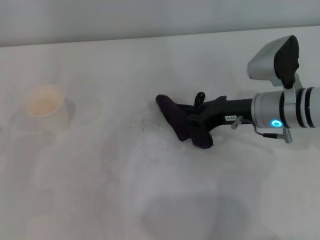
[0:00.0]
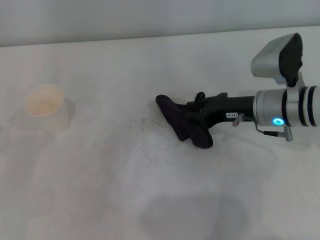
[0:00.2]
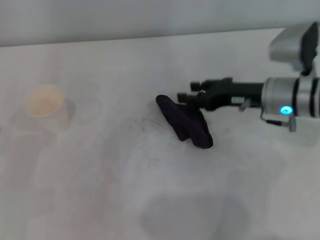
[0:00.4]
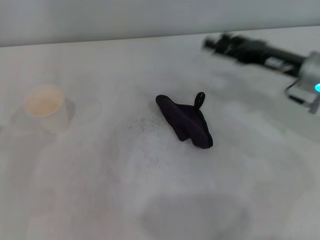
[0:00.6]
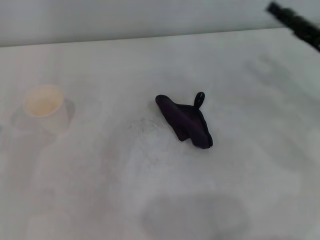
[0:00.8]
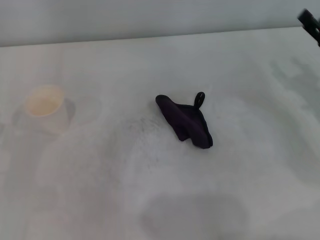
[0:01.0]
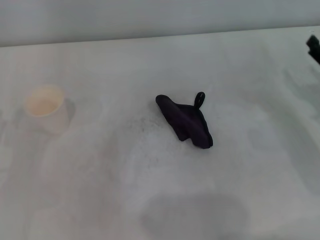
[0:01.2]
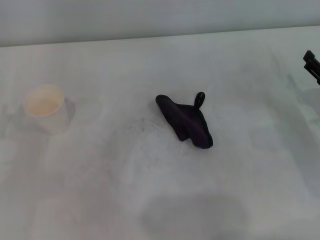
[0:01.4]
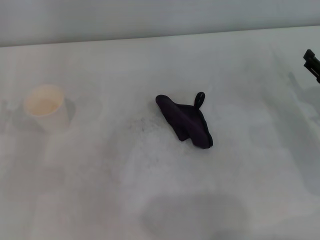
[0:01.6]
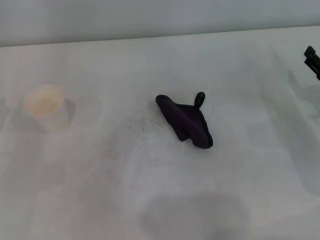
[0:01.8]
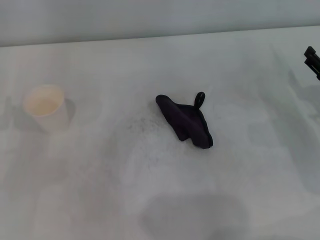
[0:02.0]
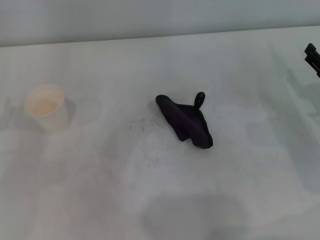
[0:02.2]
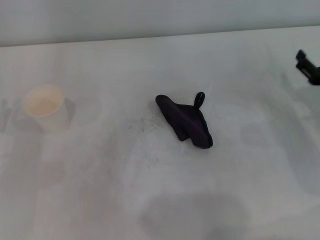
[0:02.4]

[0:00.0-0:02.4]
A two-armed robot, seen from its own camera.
0:00.0 to 0:01.2: The right gripper goes roughly 15 cm to the right, and opens.
0:01.2 to 0:02.4: The grippers move only a little.

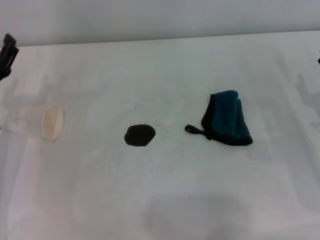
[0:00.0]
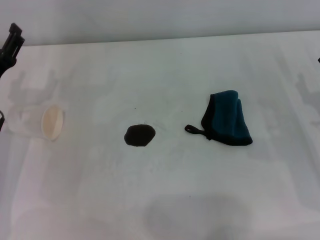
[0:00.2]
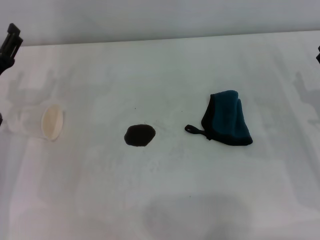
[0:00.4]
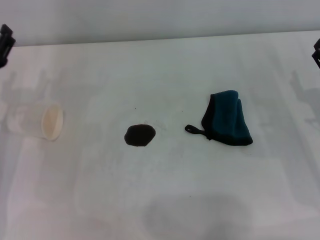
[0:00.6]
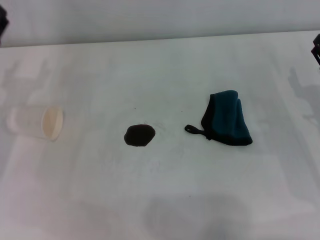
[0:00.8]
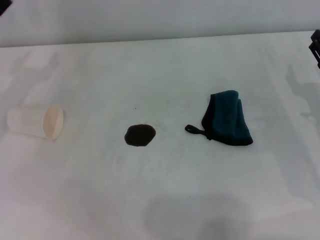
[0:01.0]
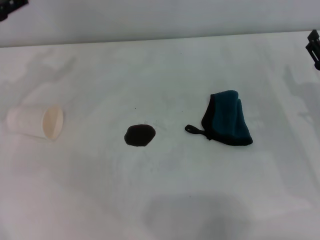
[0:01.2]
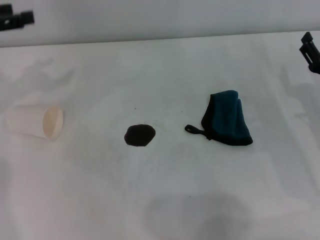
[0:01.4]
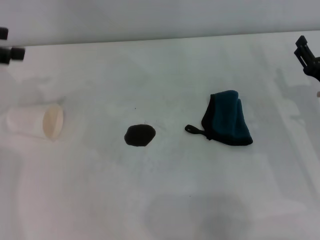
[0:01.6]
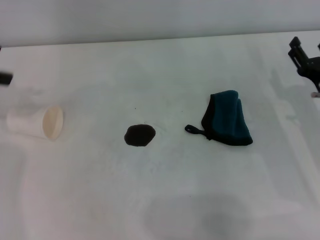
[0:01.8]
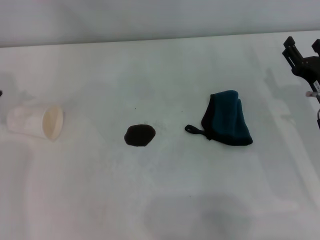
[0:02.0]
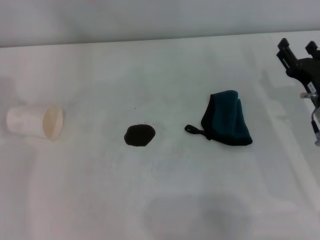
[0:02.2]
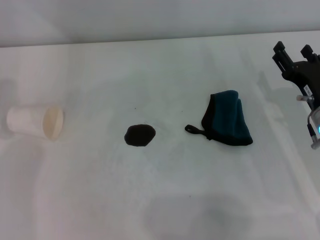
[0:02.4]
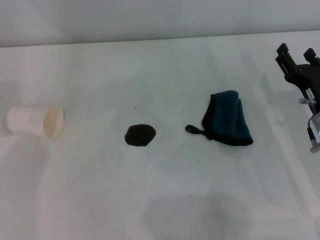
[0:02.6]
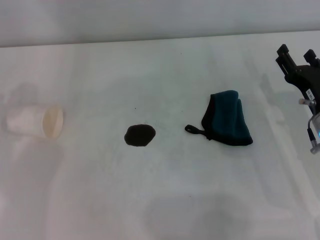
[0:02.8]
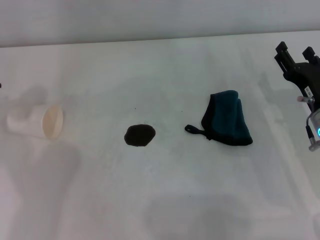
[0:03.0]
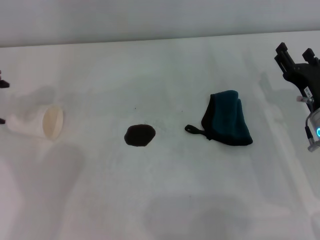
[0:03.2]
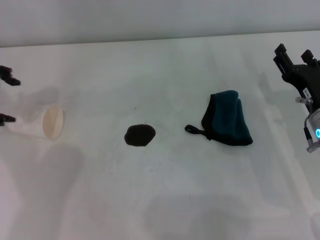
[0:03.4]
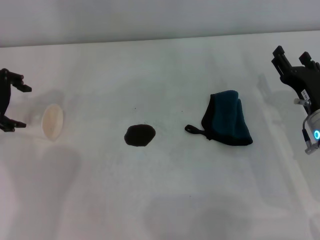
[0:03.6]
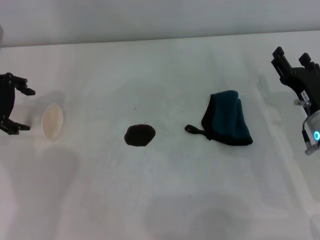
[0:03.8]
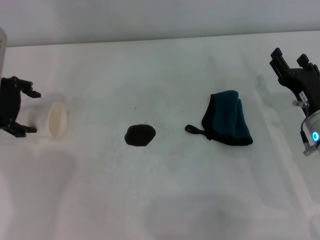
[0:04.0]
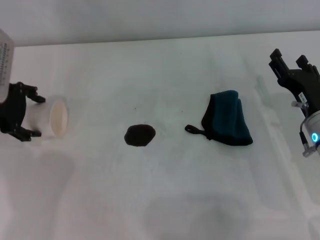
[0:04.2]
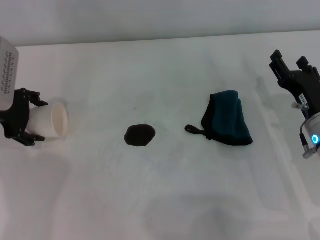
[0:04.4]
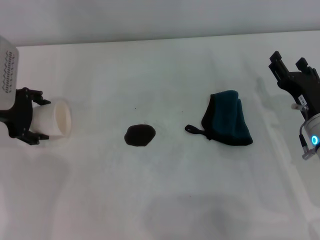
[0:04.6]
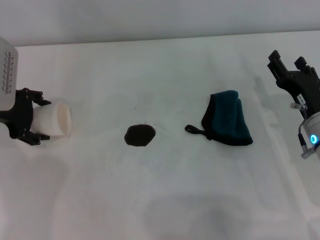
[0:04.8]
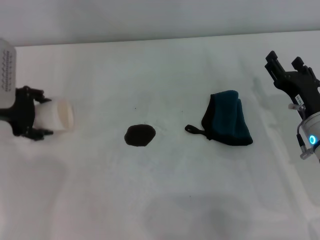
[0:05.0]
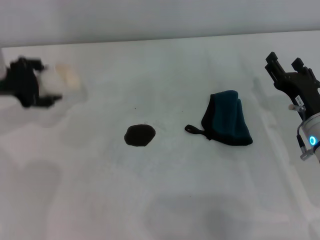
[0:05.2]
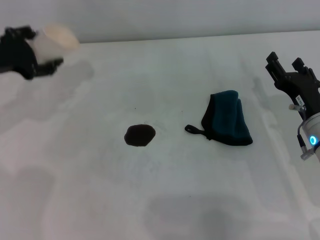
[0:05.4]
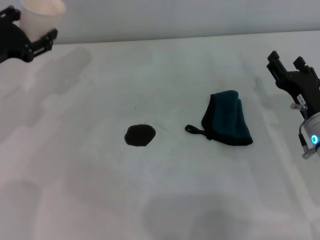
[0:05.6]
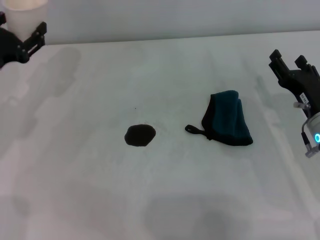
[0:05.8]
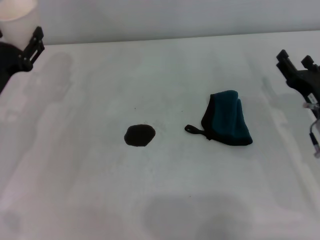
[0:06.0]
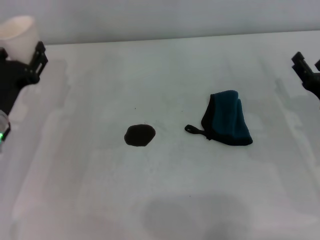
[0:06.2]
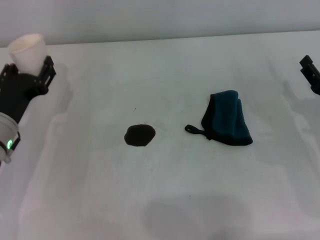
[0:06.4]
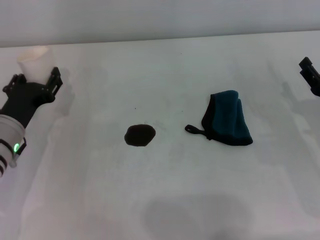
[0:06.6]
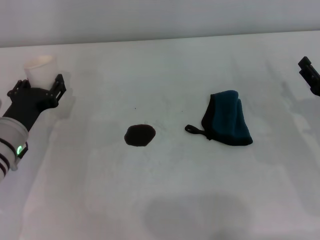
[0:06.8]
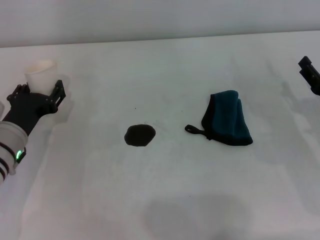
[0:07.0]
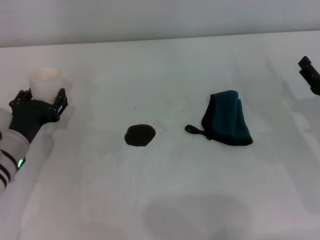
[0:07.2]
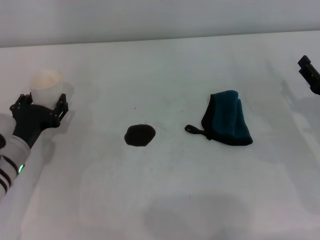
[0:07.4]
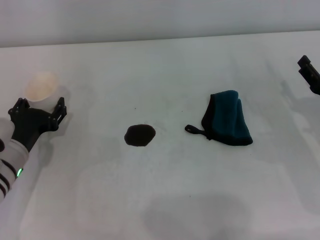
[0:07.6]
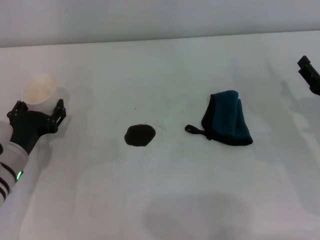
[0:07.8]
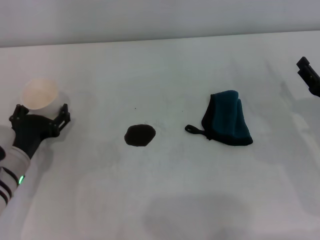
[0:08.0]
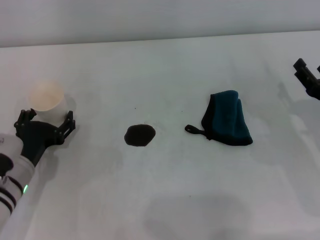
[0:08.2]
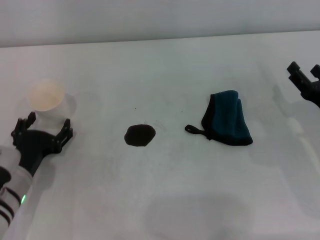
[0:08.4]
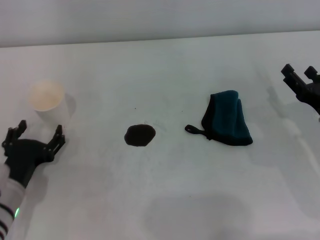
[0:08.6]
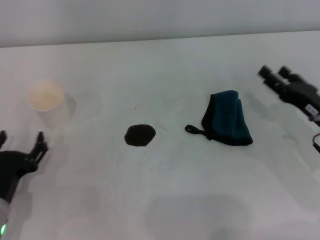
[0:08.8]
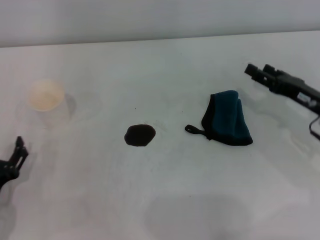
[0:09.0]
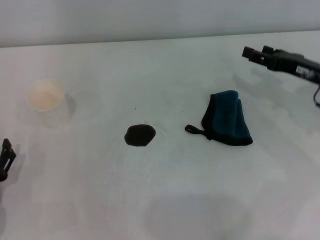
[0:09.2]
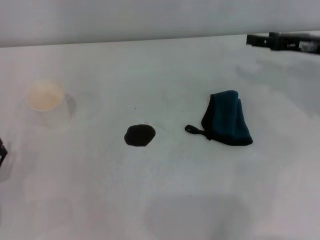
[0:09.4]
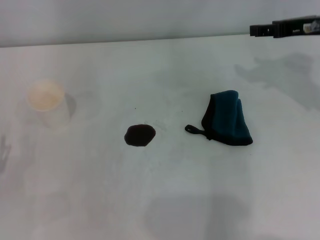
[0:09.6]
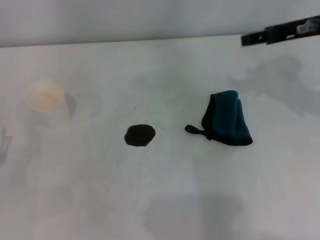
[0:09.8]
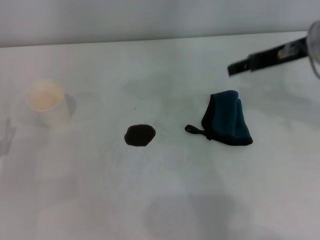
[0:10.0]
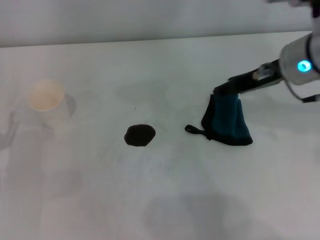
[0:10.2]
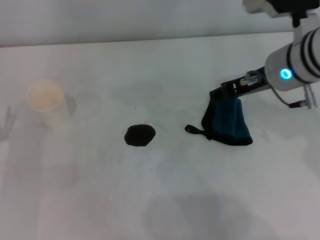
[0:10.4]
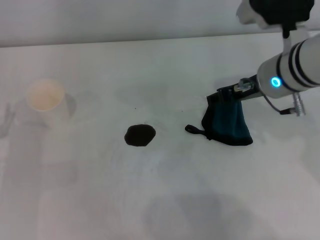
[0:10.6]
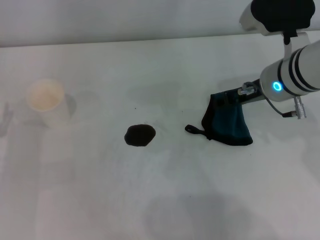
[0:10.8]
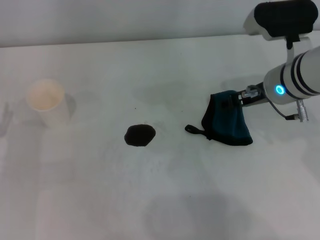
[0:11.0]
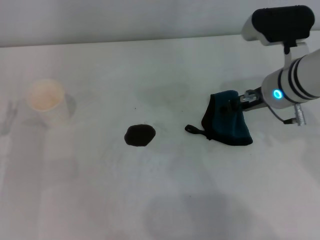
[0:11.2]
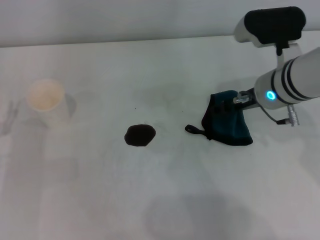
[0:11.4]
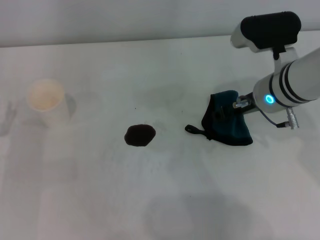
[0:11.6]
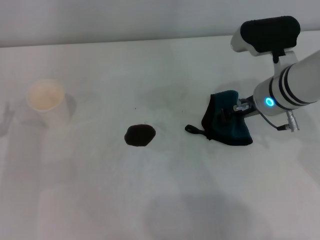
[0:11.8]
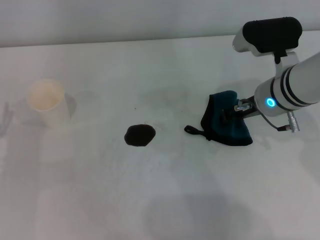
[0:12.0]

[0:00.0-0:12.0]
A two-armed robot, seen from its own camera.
Step, 0:00.0 to 0:04.2: Grasp the paper cup with the left gripper.
Step, 0:04.6 to 0:08.0: Stand the paper cup upright with the left gripper.
0:00.0 to 0:01.6: The left gripper travels upward, to the left and forward by approximately 20 cm.
0:03.0 to 0:04.4: The left gripper shifts about 10 cm downward.
0:04.4 to 0:06.0: The left gripper shifts roughly 10 cm downward and backward, and closes.
0:06.0 to 0:07.6: The left gripper shifts approximately 5 cm downward.
0:07.6 to 0:09.0: The left gripper goes some 10 cm backward, and opens.
0:09.0 to 0:10.4: The left gripper moves forward, approximately 5 cm. Meanwhile the right gripper is displaced upward and to the left by about 20 cm.
0:10.4 to 0:12.0: The right gripper is displaced downward by approximately 5 cm, and closes up.

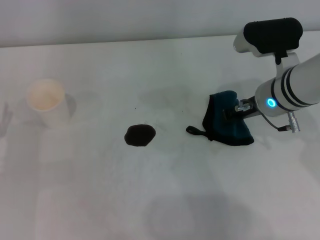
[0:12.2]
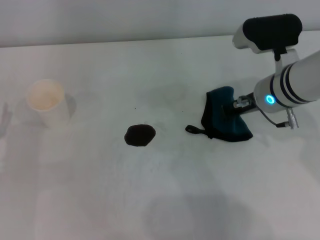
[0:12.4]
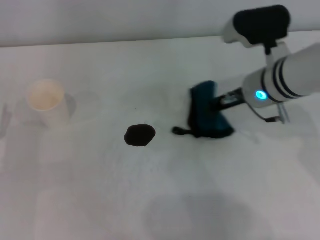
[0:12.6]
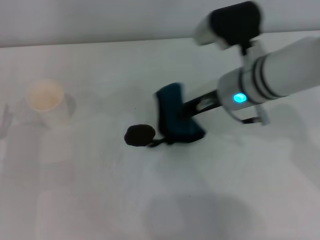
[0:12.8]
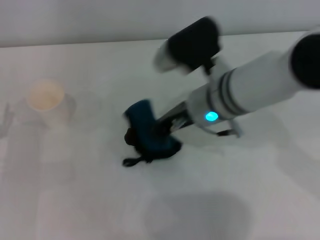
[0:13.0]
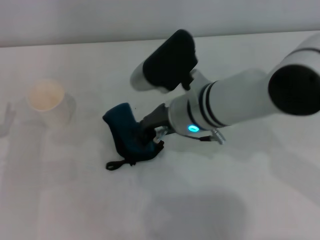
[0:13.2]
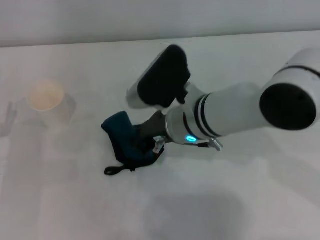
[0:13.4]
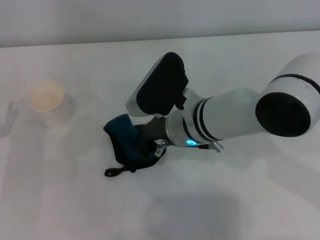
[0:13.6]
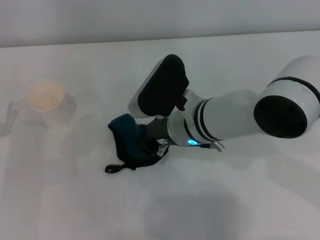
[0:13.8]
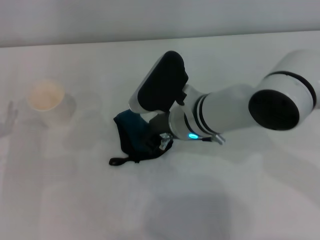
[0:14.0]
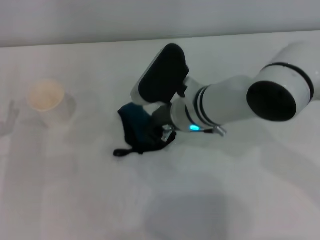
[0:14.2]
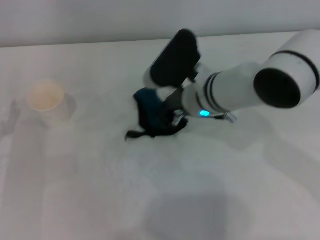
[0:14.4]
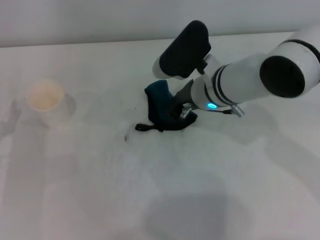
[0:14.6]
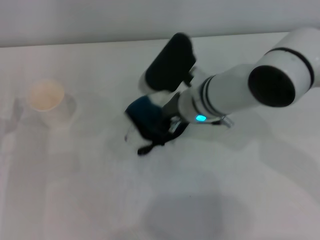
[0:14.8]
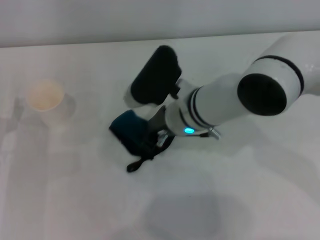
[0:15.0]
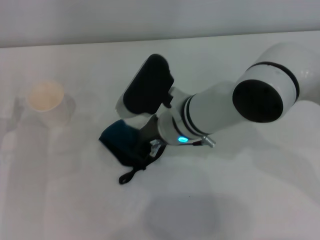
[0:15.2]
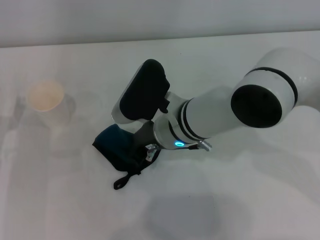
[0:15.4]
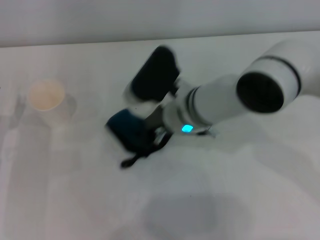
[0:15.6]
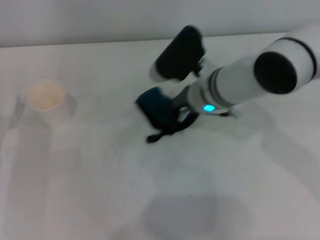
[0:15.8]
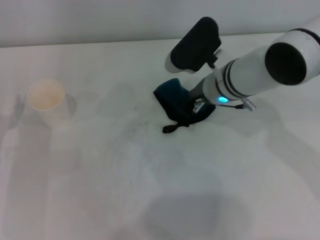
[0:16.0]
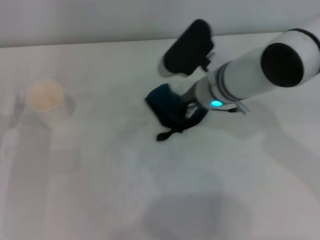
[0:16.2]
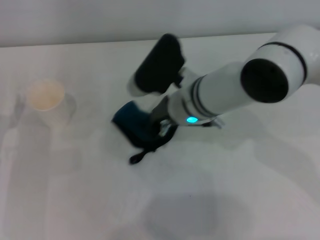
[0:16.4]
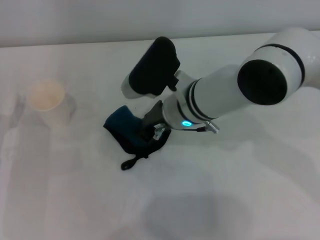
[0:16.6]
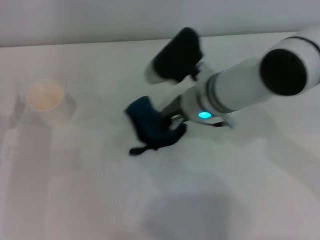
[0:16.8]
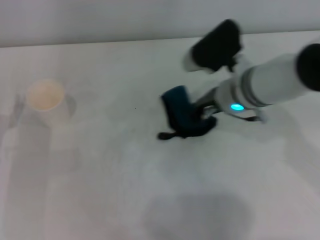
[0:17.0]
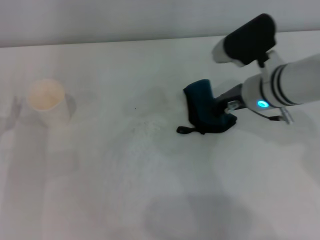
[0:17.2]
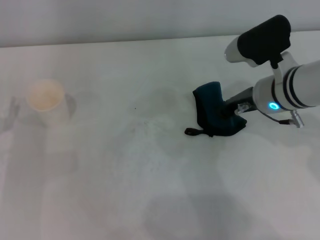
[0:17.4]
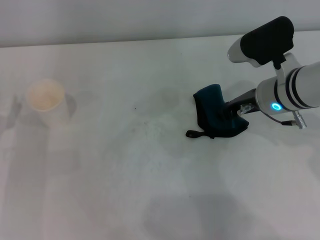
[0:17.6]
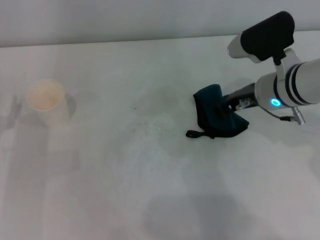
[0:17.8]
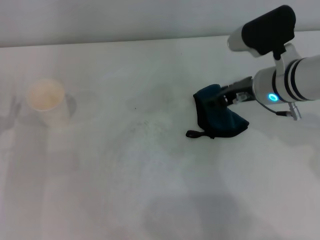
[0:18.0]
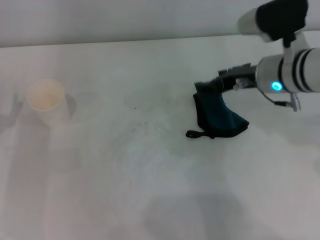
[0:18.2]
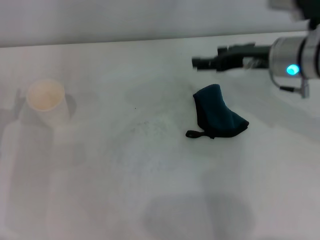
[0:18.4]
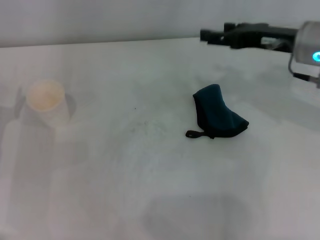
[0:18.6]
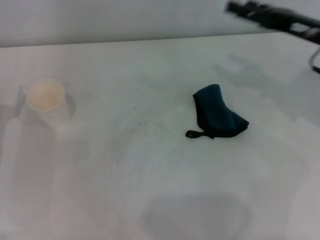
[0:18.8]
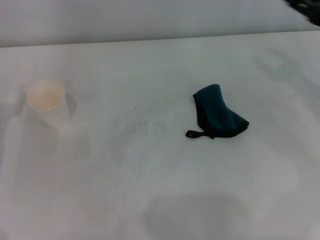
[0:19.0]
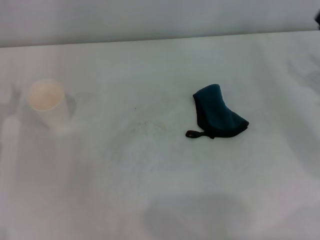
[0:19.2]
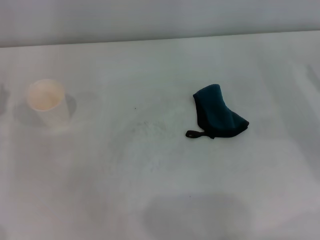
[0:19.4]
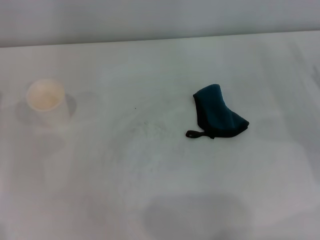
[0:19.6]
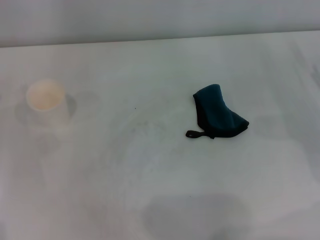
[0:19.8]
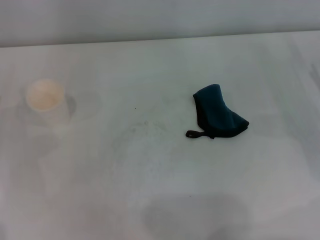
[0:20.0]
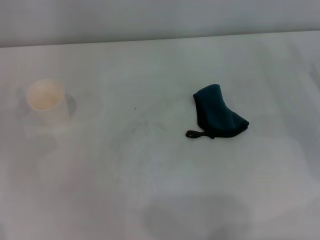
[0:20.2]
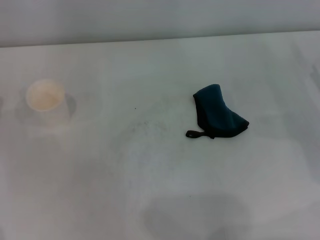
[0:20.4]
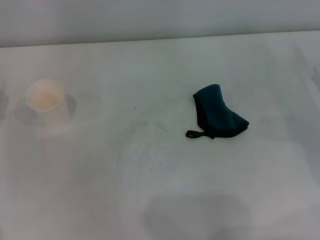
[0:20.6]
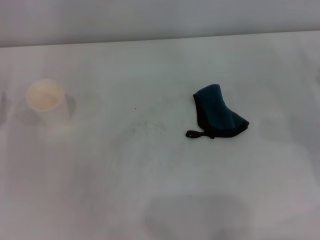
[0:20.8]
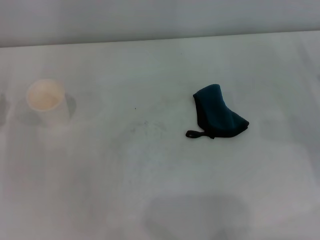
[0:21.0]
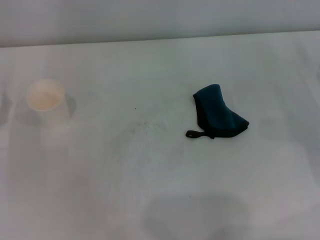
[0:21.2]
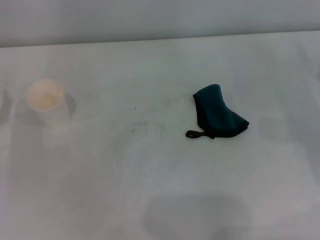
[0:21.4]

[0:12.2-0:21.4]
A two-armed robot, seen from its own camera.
Step, 0:12.4 to 0:17.0: Wipe the stains off the table with the right gripper.
Step, 0:17.2 to 0:17.8: Place the rag on the table with the right gripper.
0:12.2 to 0:13.8: The right gripper travels to the left by some 15 cm.
0:16.8 to 0:18.4: The right gripper shifts approximately 15 cm to the right and upward, and opens.
0:18.4 to 0:19.8: The right gripper heads to the right and downward, covering approximately 20 cm.
